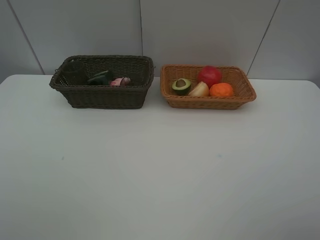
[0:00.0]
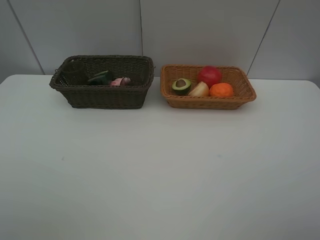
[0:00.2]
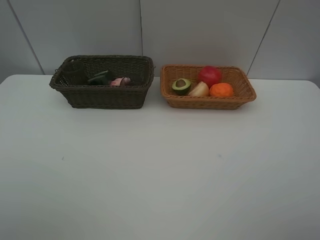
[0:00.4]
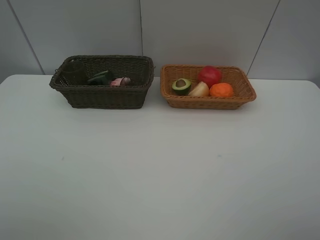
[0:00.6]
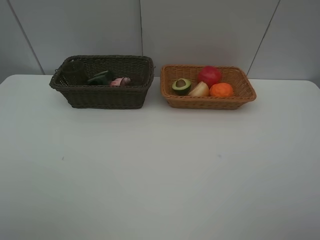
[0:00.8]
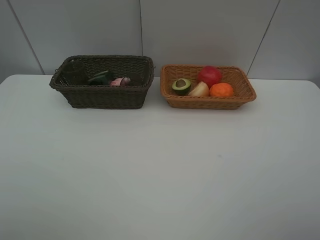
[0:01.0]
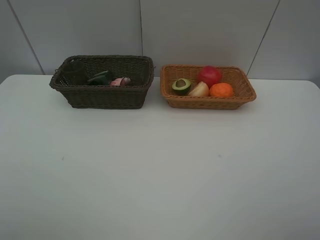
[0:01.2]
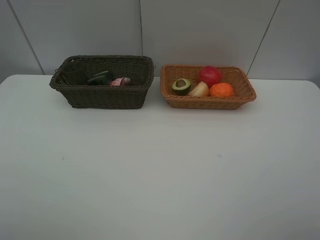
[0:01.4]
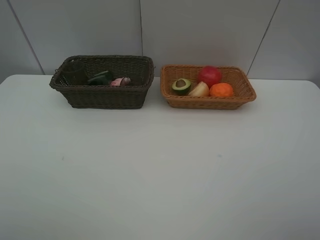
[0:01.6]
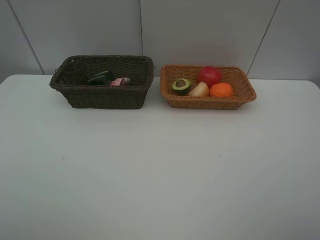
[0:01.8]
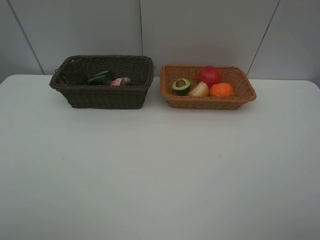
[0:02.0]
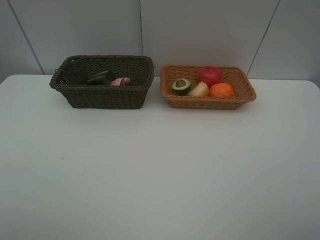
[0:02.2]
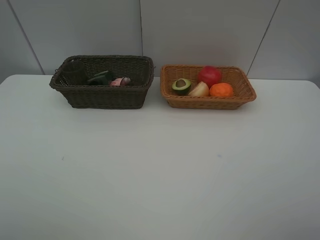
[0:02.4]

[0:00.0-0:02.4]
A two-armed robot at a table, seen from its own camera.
Task of the whole recording: Place multiple objects separately in different baskets.
0:01.2 to 0:02.4: Neither gripper changes place.

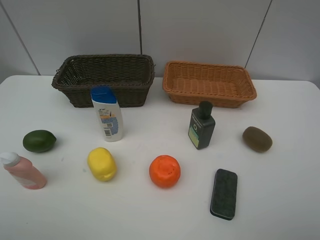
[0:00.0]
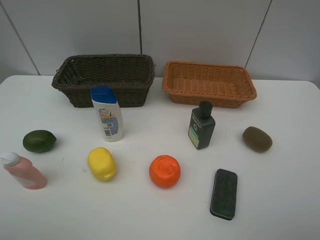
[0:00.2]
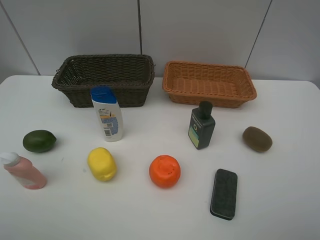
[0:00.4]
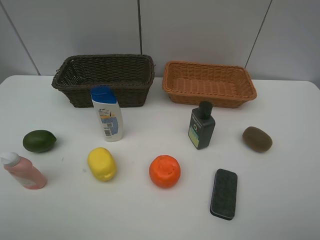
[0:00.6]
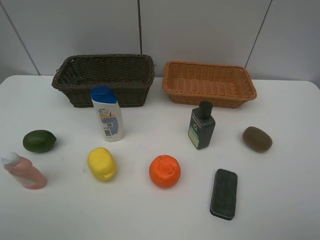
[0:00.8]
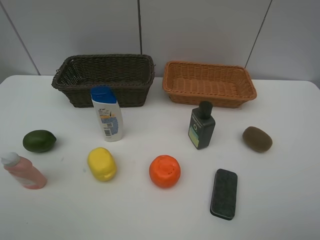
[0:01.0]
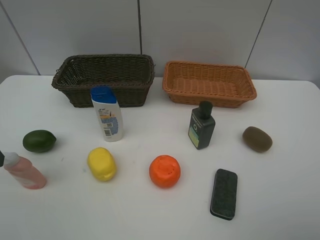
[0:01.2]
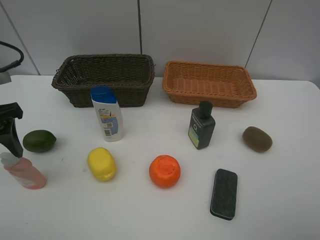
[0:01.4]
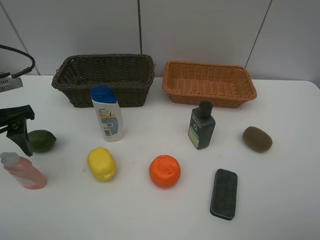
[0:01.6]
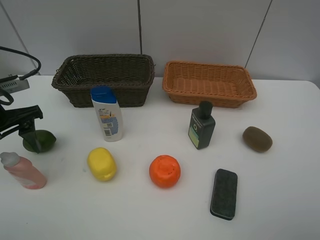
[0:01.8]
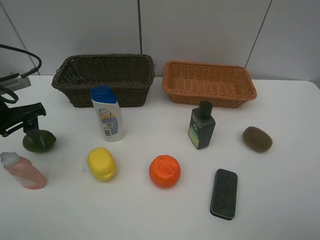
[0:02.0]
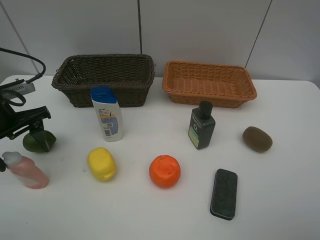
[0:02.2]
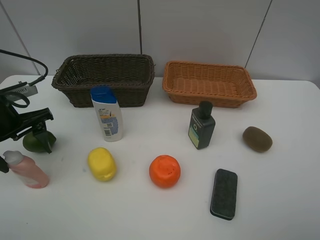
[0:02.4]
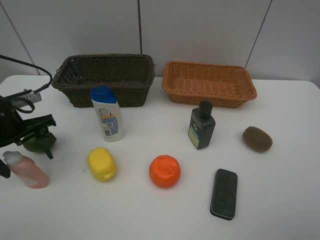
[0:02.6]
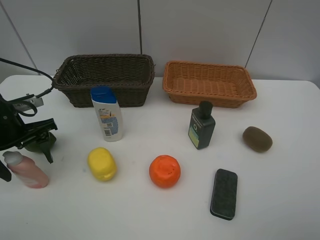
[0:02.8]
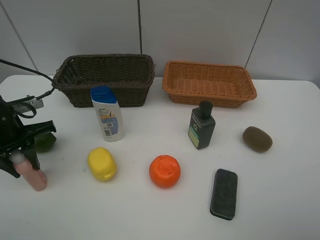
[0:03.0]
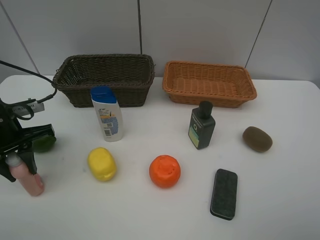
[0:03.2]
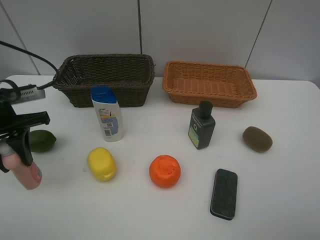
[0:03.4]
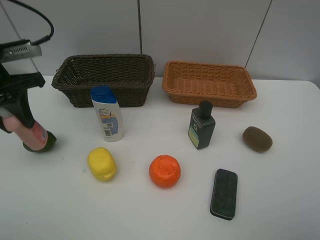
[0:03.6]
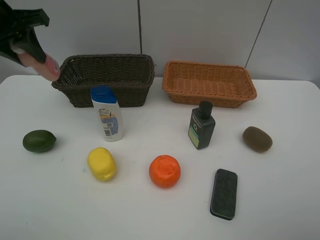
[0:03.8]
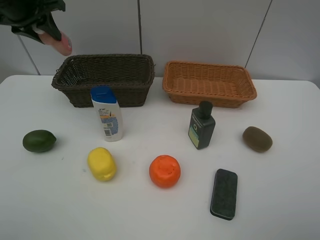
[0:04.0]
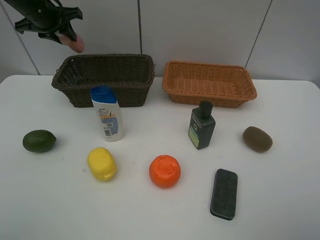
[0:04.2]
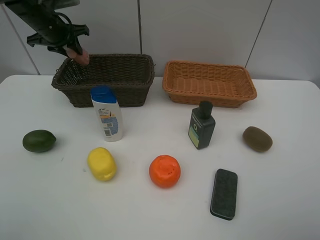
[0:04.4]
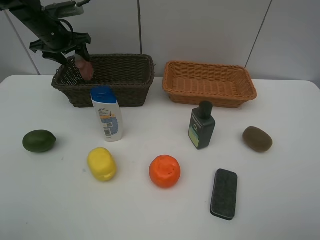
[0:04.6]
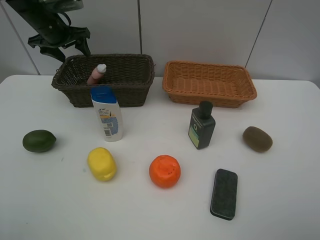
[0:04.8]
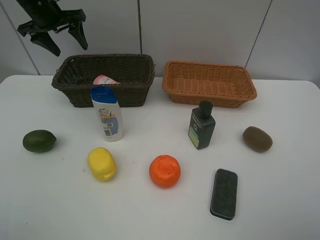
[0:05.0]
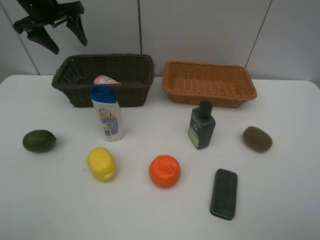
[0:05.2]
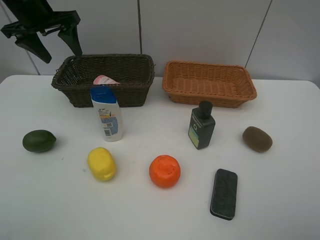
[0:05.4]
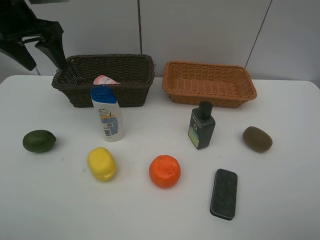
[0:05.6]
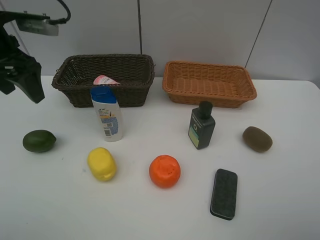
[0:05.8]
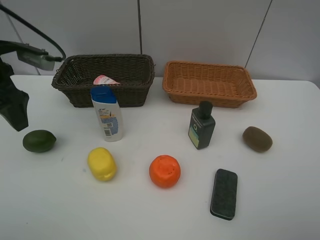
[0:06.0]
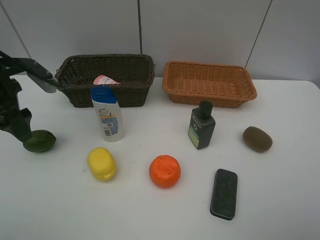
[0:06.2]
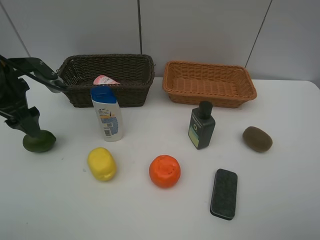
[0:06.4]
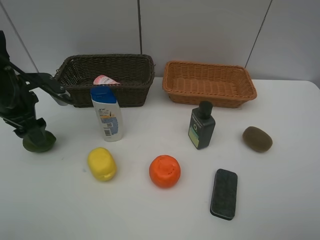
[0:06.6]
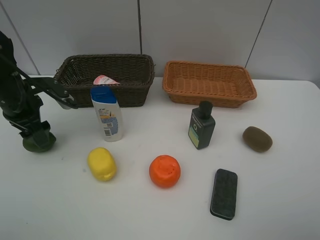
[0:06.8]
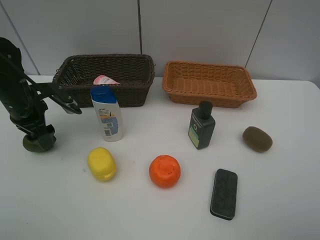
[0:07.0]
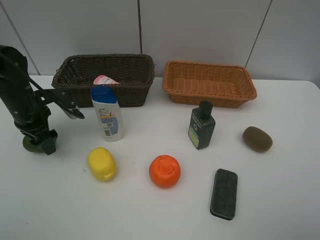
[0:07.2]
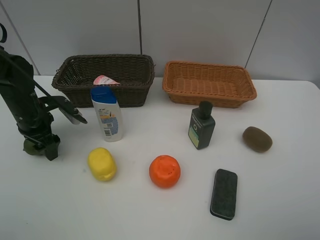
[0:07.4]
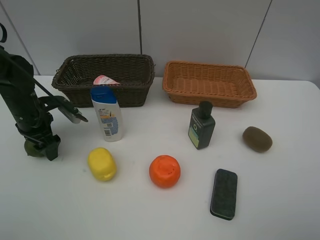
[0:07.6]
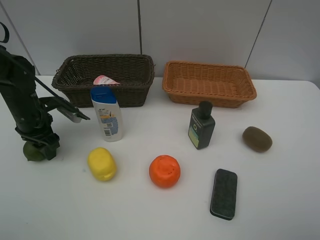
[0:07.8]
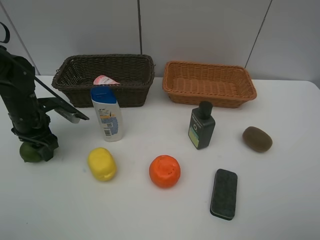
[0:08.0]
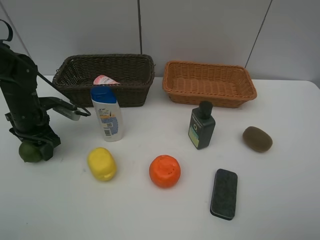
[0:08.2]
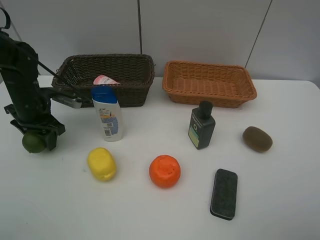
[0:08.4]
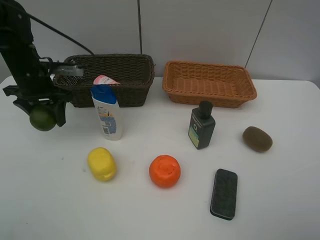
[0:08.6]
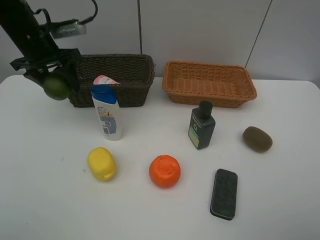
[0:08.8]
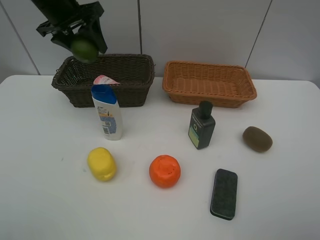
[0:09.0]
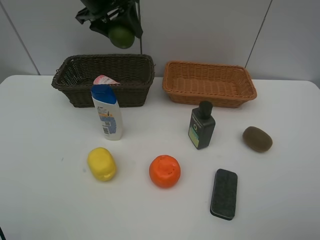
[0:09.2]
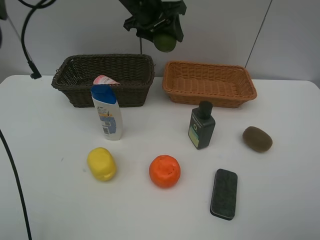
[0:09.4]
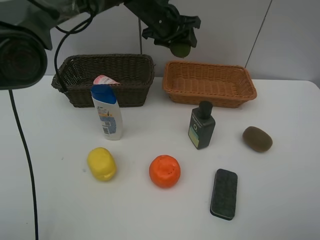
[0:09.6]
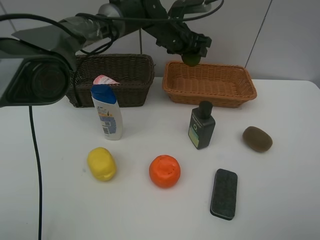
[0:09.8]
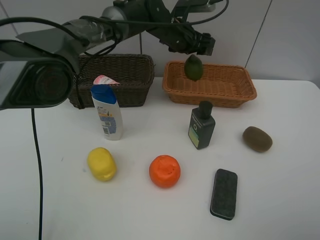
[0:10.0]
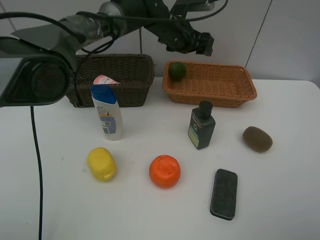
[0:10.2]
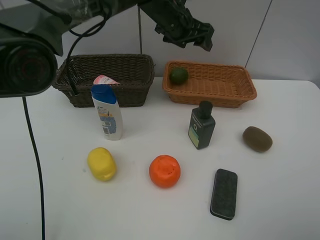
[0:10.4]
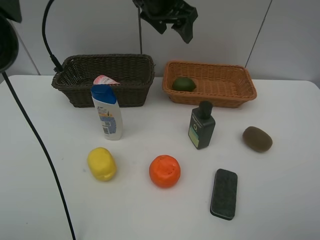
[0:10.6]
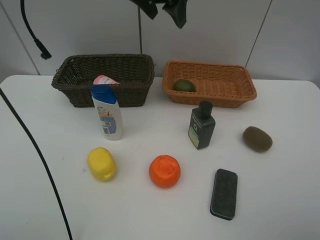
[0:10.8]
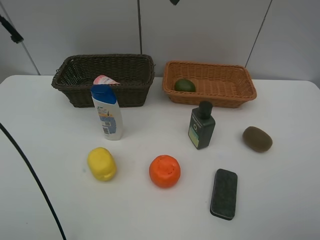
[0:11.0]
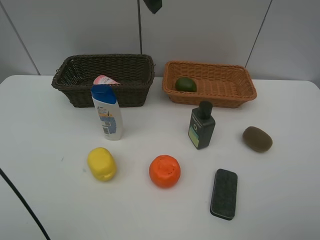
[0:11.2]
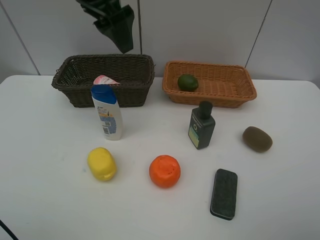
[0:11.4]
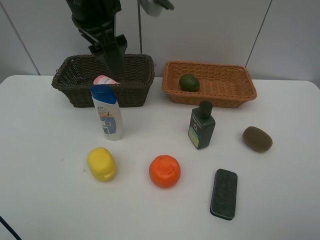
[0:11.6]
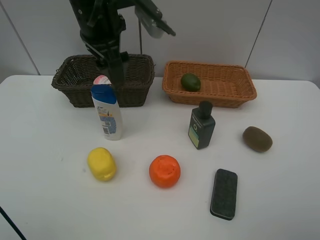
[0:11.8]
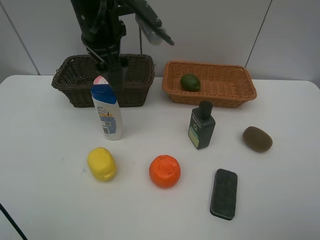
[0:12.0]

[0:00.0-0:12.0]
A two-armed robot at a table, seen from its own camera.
Task of the whole recording: Place multiple objects separately in different baskets.
Step, 0:00.0 to 0:03.2: Pick up the laundry detergent with left gripper.
Step, 0:03.4 to 0:04.8: Place the laundry detergent in the dark basket with left gripper.
Step, 0:05.0 to 0:08.4: Pick up the lime with left gripper.
Step, 0:08.6 to 0:10.0: Place the lime in the light basket with left gripper.
0:00.0 to 0:01.6: The left gripper is displaced forward by approximately 20 cm.
0:01.6 to 0:03.0: The left gripper heads downward, covering some 5 cm, and closes.
0:03.0 to 0:04.4: The left gripper shifts roughly 25 cm forward.
0:04.4 to 0:06.0: The left gripper shifts roughly 20 cm backward, and opens its fingers.
0:06.0 to 0:07.6: The left gripper is displaced downward by roughly 15 cm.
0:07.6 to 0:09.0: The left gripper moves upward, forward and to the right, some 25 cm, and closes up.
0:09.0 to 0:10.4: The left gripper heads to the right, covering roughly 20 cm, and opens its fingers.
0:10.4 to 0:12.0: The left gripper heads backward and to the left, covering some 15 cm, and reaches approximately 15 cm upward, then returns.

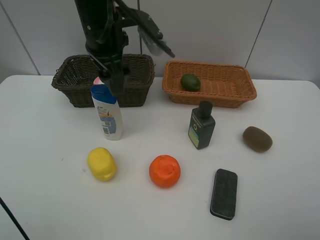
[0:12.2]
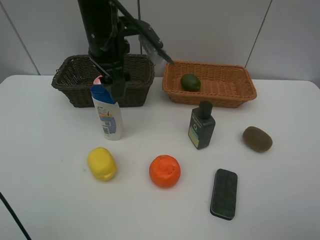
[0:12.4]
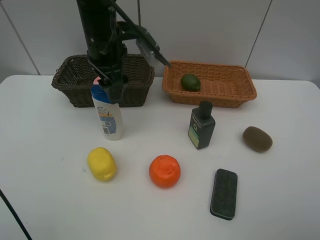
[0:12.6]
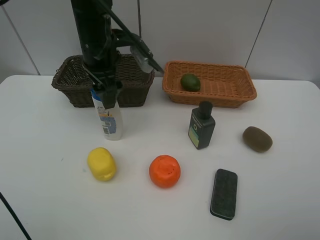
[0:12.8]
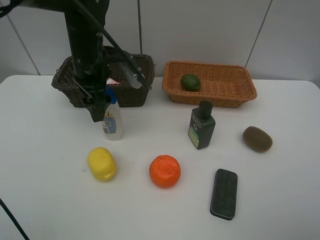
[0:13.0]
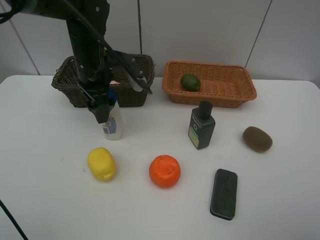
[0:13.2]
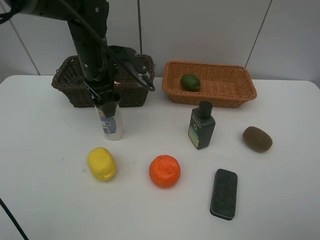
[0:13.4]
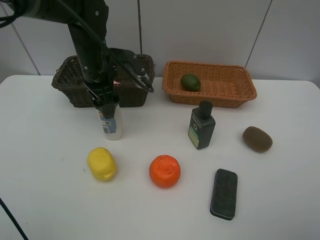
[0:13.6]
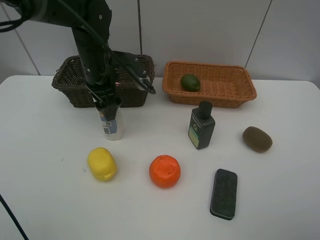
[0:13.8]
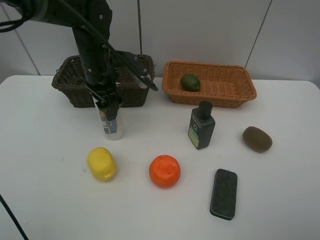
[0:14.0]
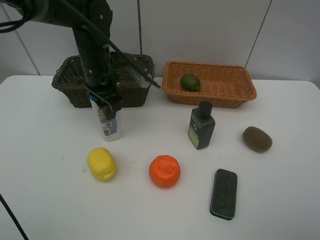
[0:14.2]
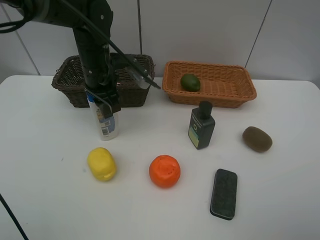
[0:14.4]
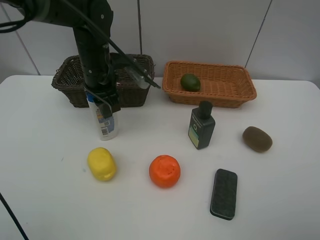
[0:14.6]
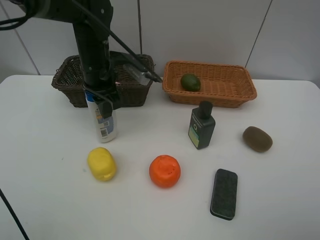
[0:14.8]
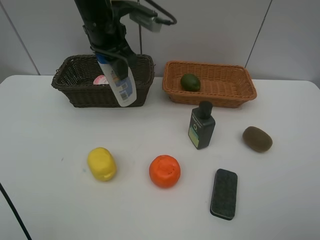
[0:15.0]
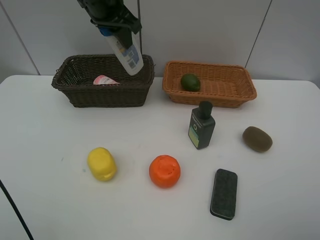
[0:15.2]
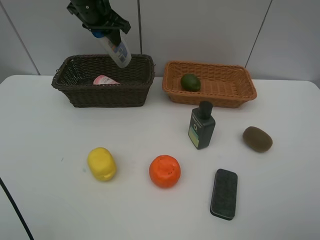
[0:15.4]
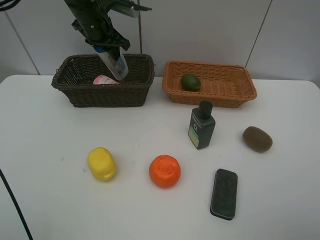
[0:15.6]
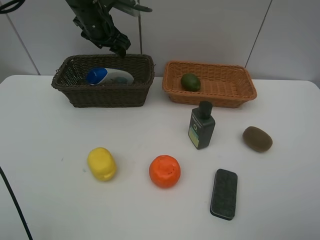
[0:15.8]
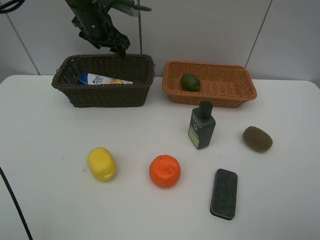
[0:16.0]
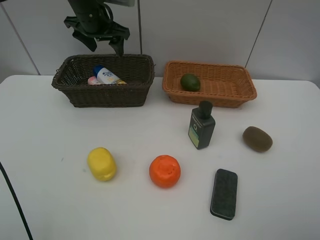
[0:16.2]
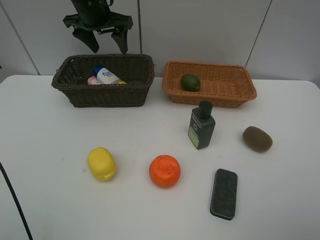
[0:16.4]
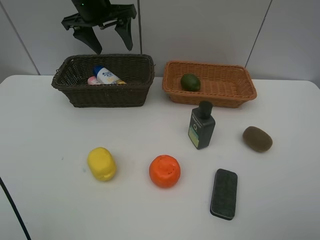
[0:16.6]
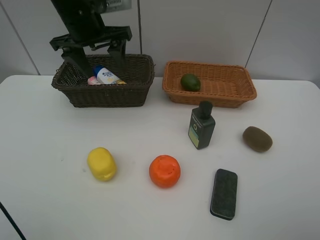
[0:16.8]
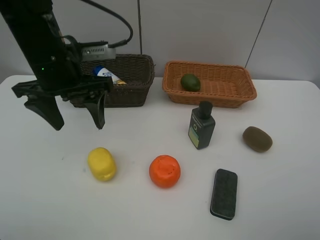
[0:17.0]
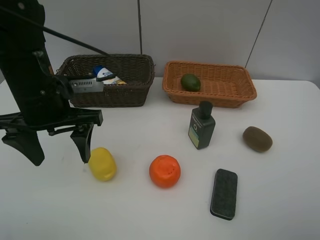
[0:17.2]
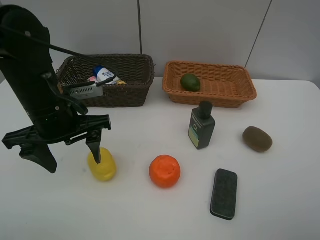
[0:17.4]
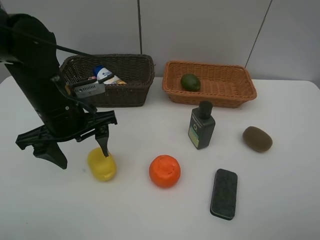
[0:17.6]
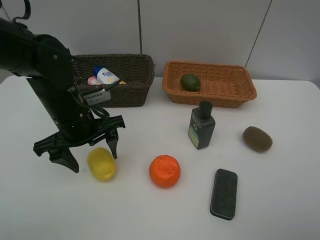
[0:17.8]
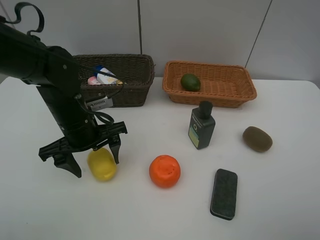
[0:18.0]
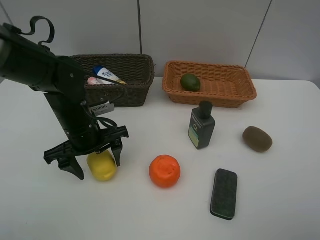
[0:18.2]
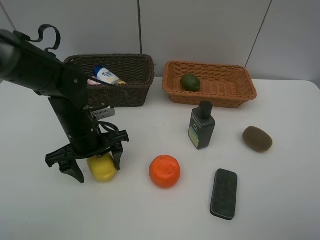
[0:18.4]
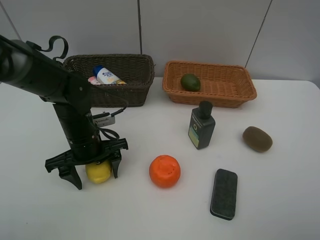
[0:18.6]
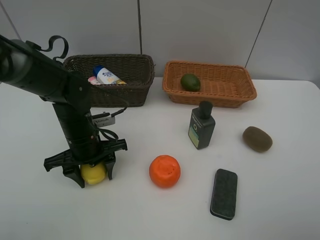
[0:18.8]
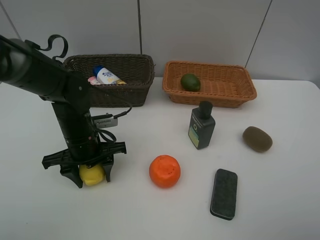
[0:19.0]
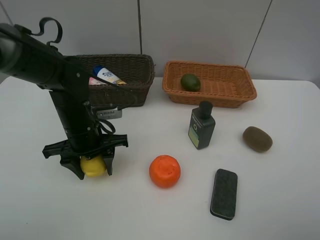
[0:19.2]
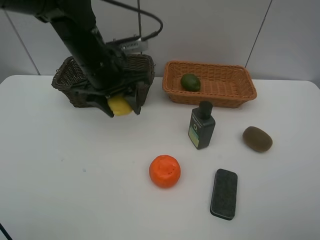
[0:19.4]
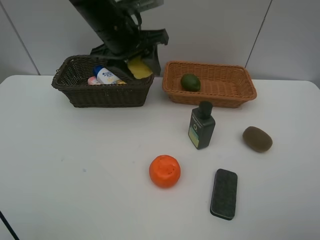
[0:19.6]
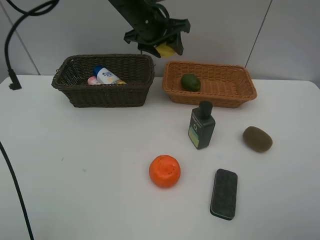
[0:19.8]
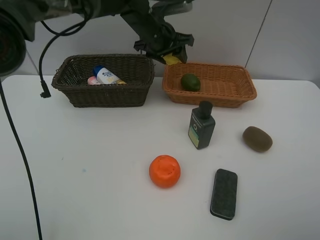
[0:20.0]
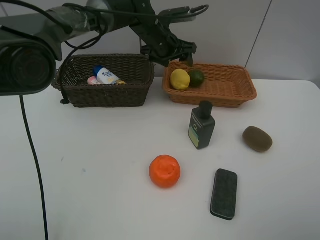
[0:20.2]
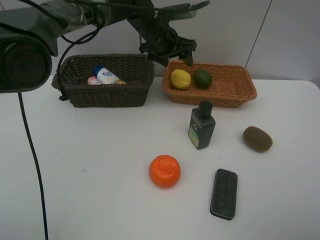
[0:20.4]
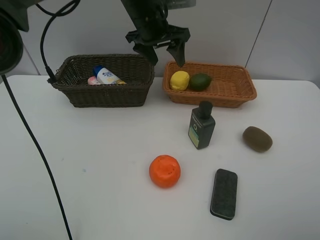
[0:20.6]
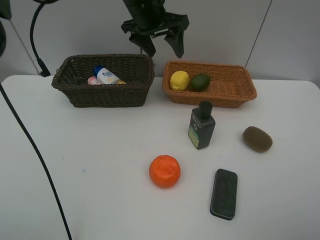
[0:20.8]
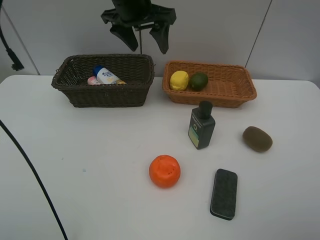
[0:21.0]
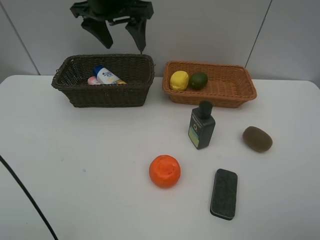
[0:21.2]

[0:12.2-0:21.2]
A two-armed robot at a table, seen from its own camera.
Task of the whole recording: Place multiple objects separately in different baskets.
Step, 0:12.2 to 0:14.8: Pick up the shampoo with left gripper.
Step, 0:15.0 to 0:16.0: Place the shampoo in the dark basket with left gripper.
Step, 0:16.2 to 0:19.2: Pick up the lemon with left gripper.
Step, 0:19.4 to 0:20.4: Place the lemon in the light basket with left gripper.
0:12.2 to 0:13.8: The left gripper travels downward by approximately 10 cm.
0:13.8 to 0:15.2: The left gripper travels upward by some 15 cm, and closes up.
0:15.2 to 0:16.6: The left gripper opens up.
0:16.6 to 0:18.2: The left gripper travels downward and backward by some 25 cm.
0:18.2 to 0:19.8: The left gripper moves forward, upward and to the right, some 25 cm, and closes.
0:19.8 to 0:21.2: The left gripper moves upward and to the left, about 10 cm, and opens up.
